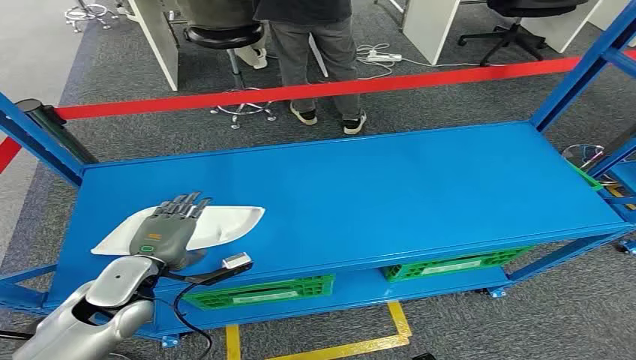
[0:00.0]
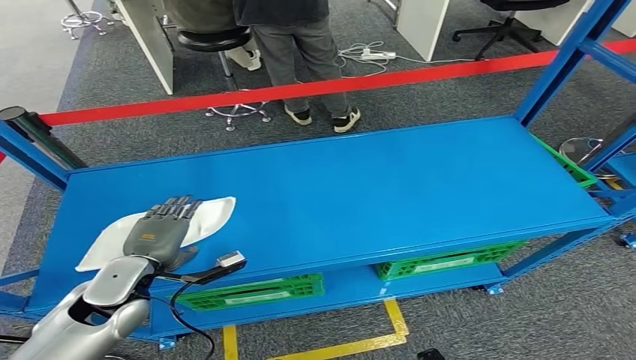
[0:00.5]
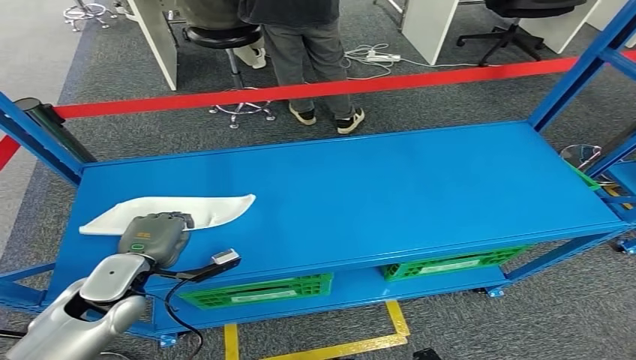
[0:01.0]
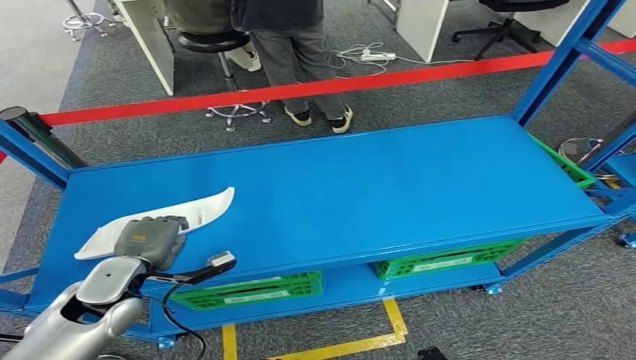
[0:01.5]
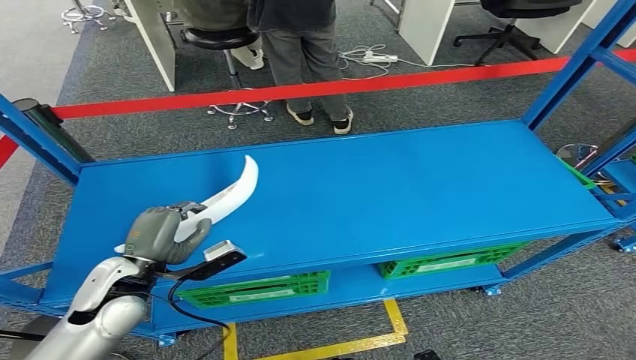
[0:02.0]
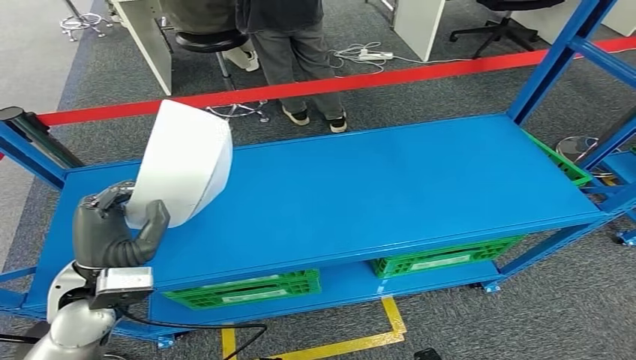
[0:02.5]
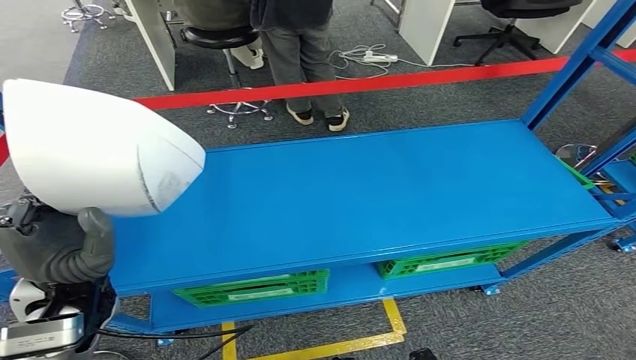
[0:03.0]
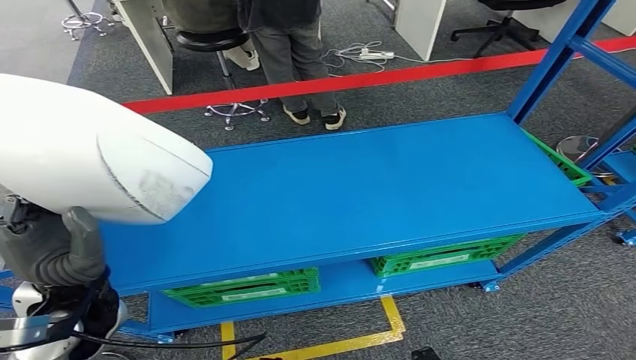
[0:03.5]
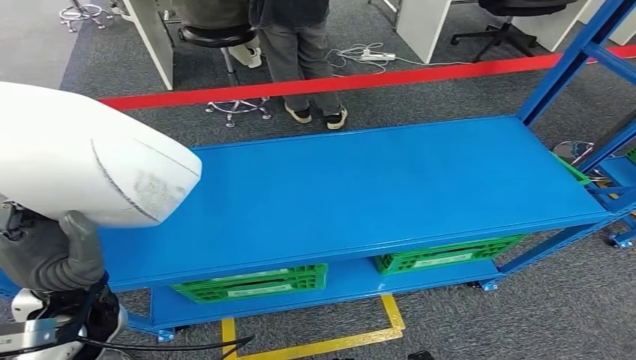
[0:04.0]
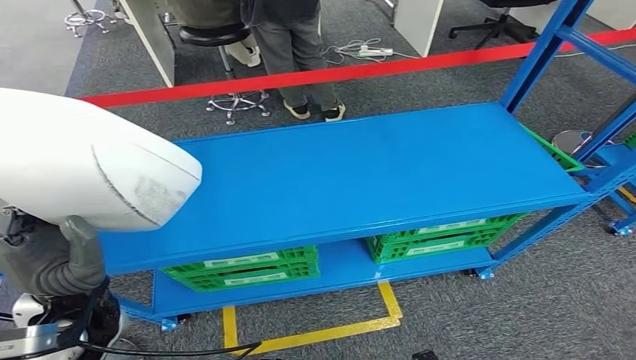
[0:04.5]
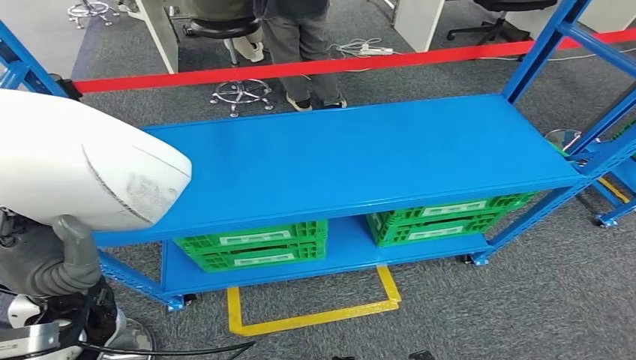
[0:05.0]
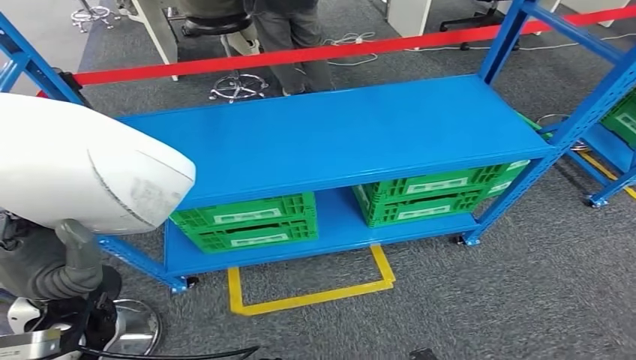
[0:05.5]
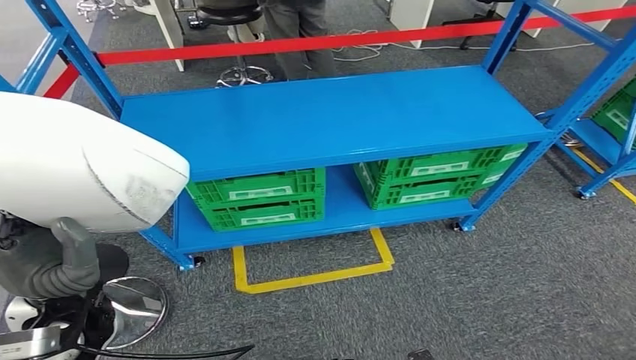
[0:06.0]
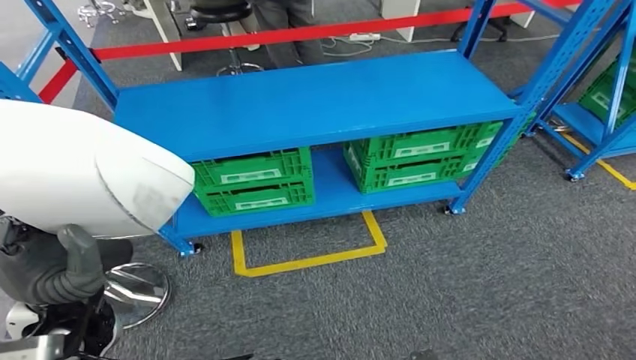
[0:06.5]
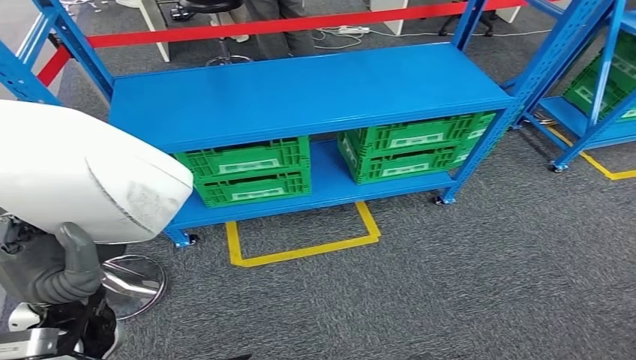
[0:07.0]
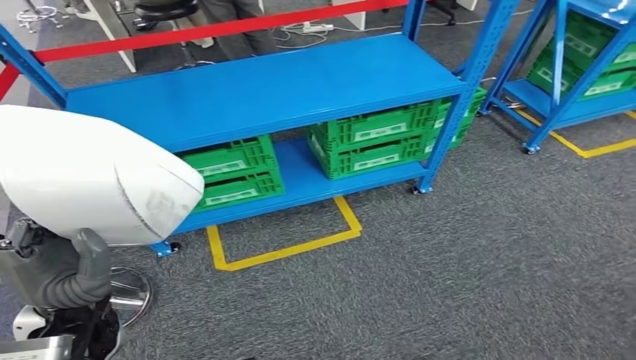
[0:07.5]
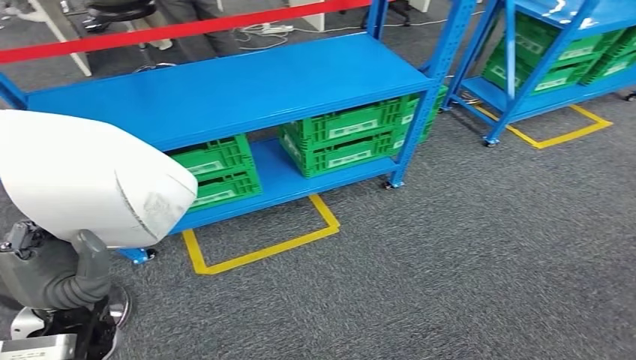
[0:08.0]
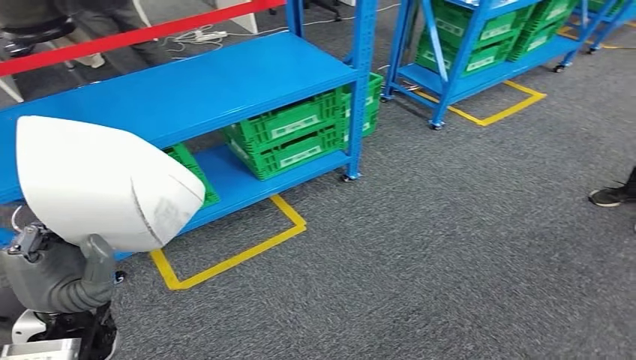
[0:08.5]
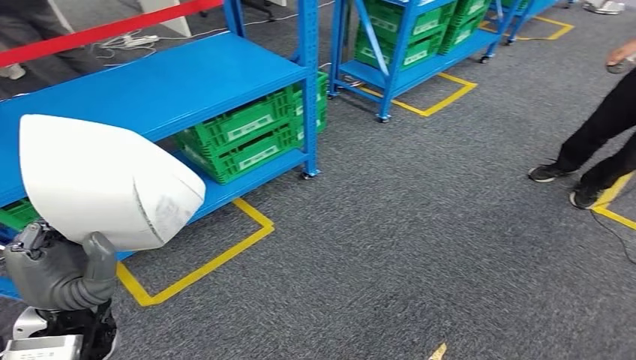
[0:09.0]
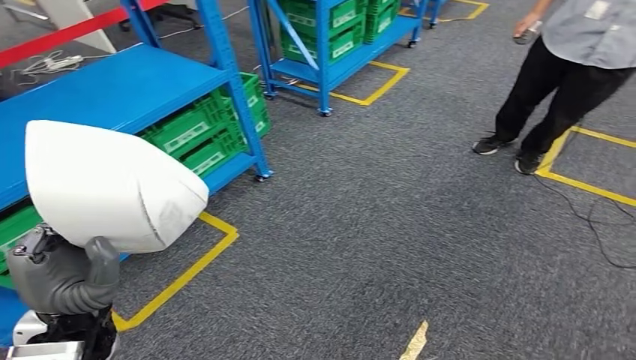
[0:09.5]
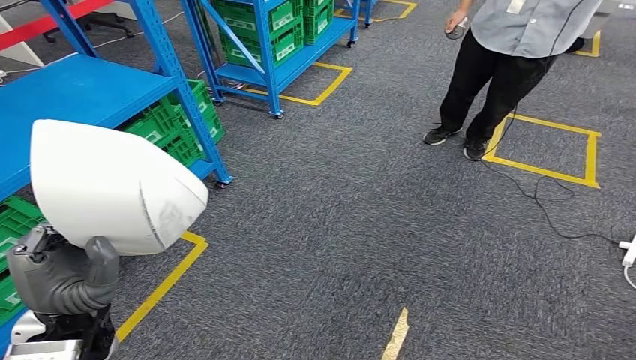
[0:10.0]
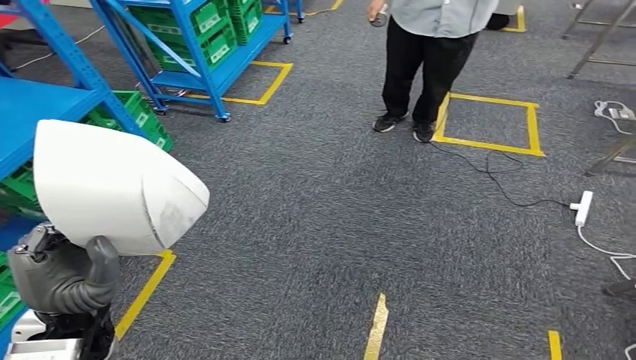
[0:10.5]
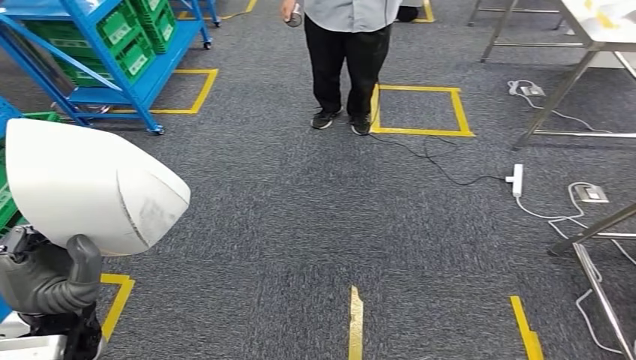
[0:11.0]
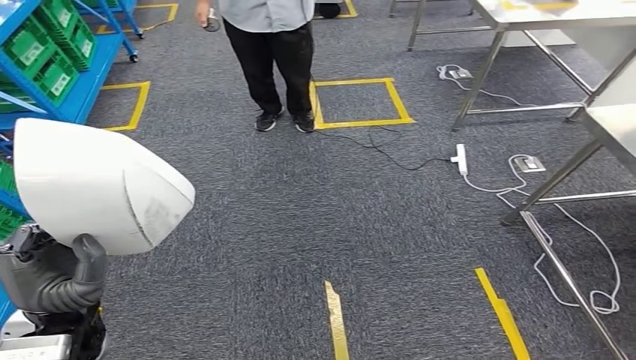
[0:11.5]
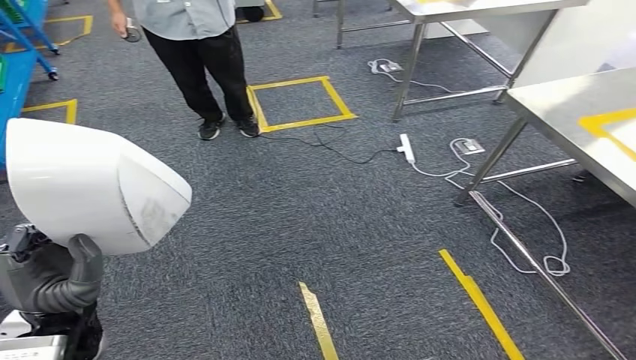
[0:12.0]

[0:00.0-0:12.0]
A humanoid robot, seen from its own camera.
Step, 0:00.0 to 0:03.0: Pick up the small component from the shelf.

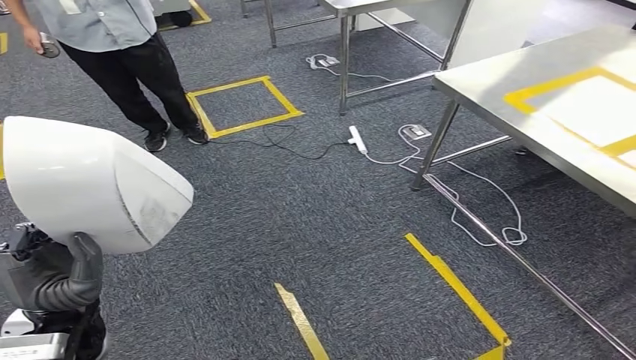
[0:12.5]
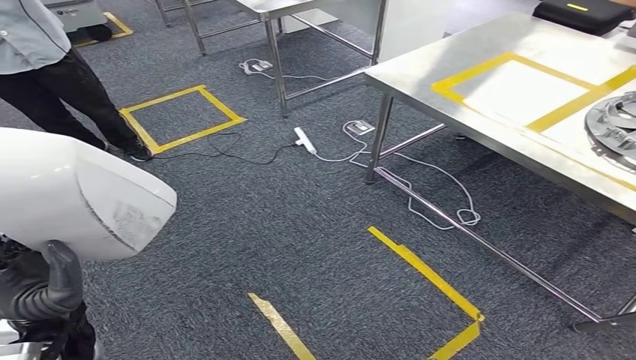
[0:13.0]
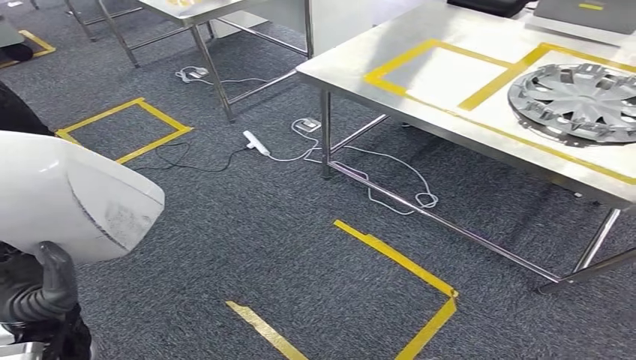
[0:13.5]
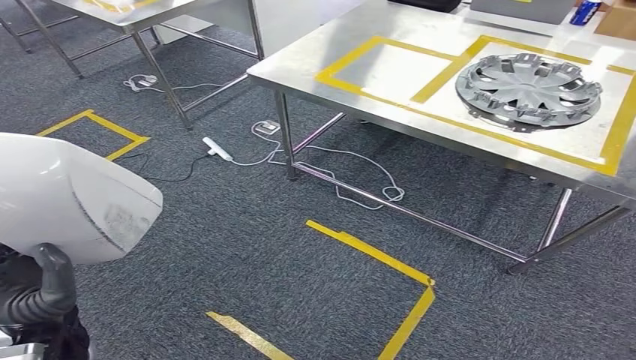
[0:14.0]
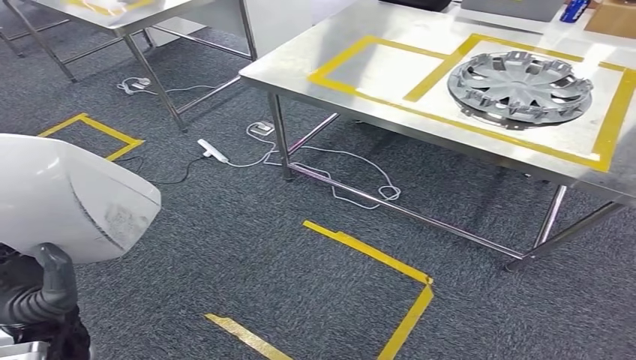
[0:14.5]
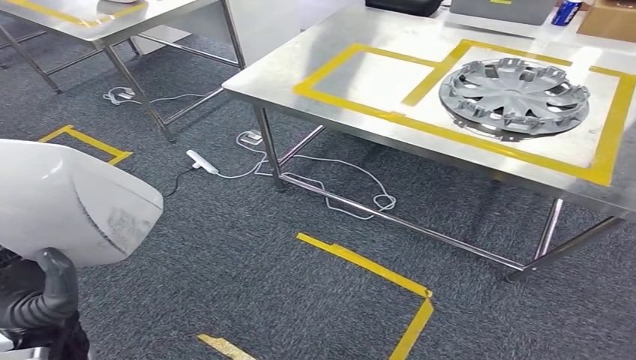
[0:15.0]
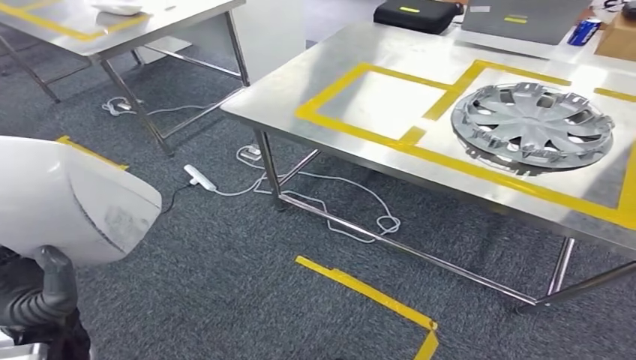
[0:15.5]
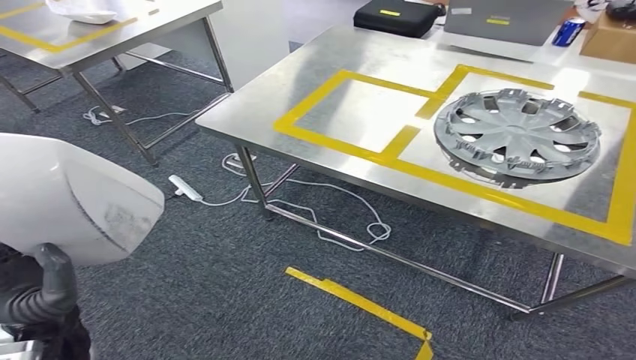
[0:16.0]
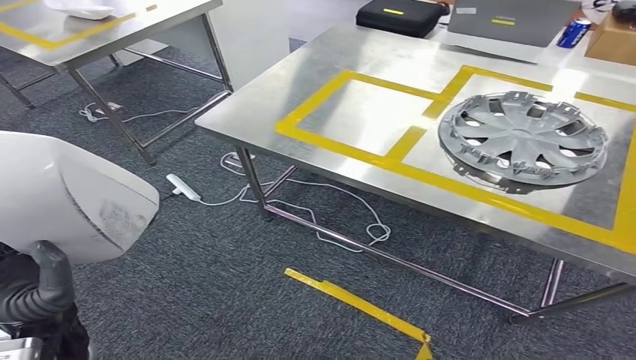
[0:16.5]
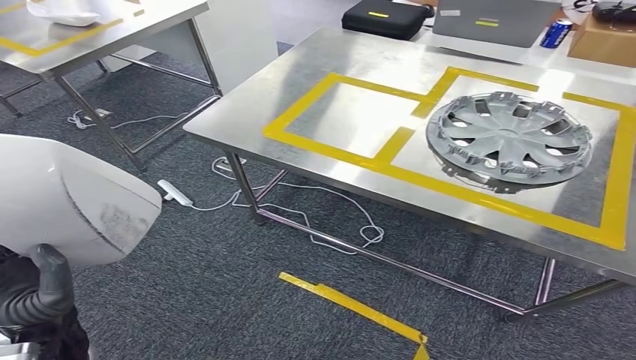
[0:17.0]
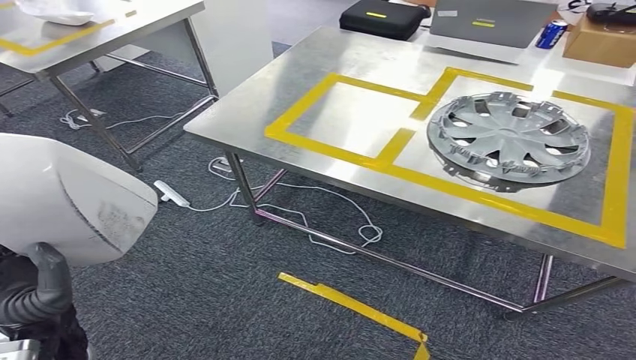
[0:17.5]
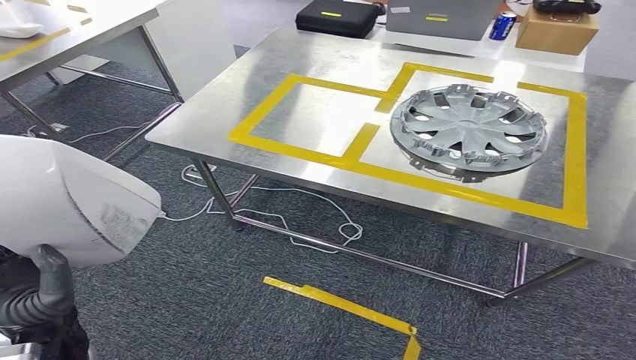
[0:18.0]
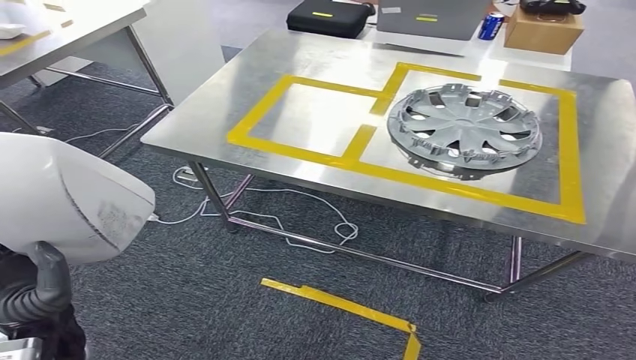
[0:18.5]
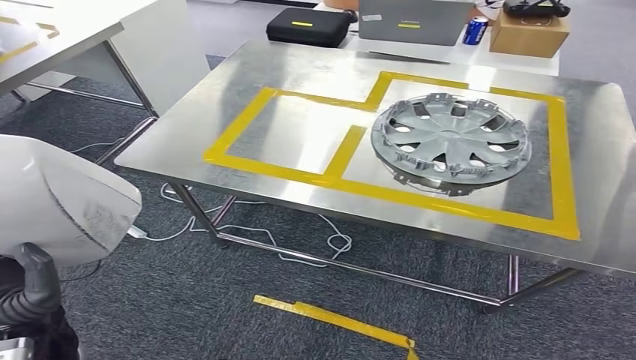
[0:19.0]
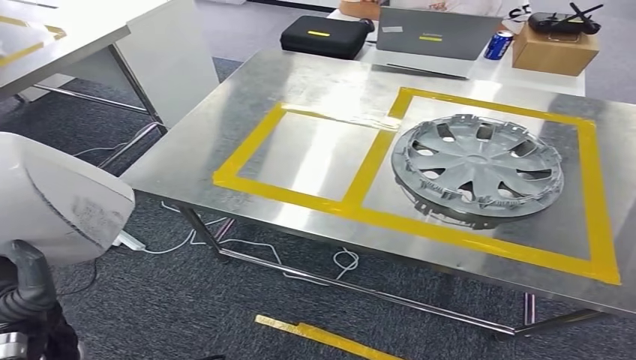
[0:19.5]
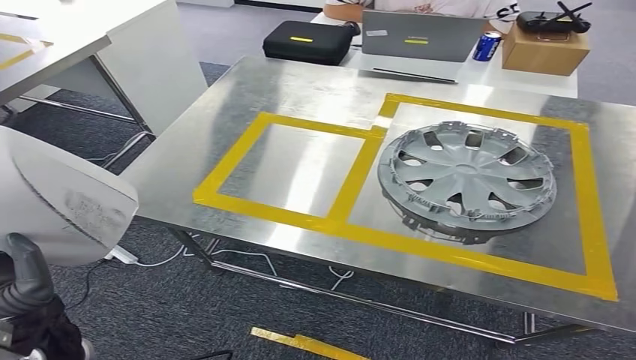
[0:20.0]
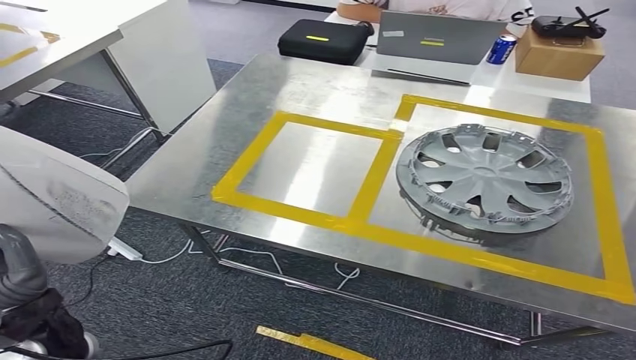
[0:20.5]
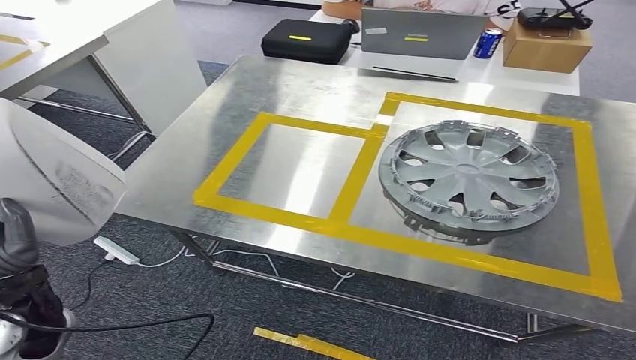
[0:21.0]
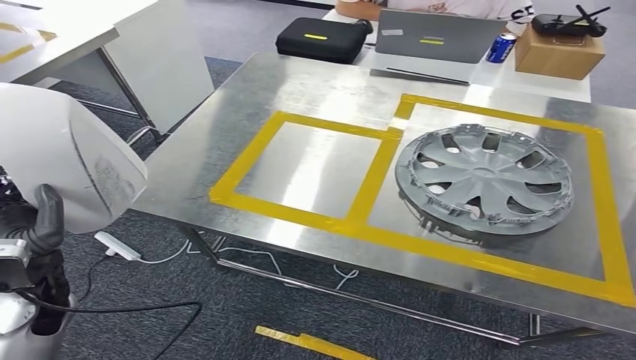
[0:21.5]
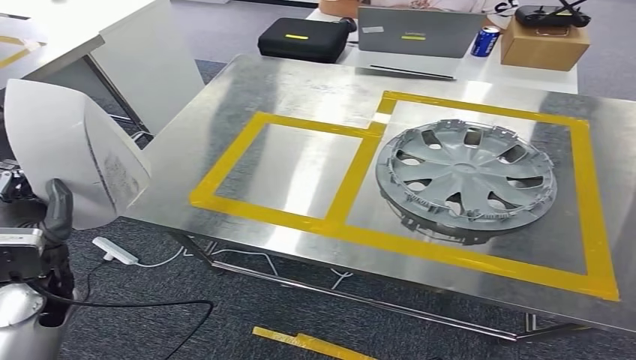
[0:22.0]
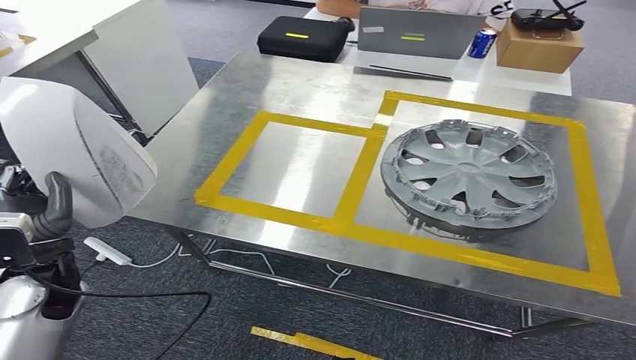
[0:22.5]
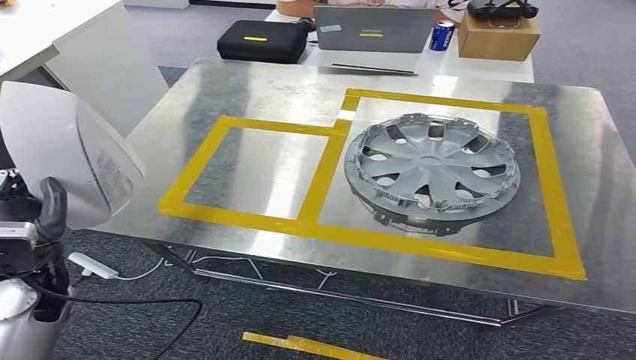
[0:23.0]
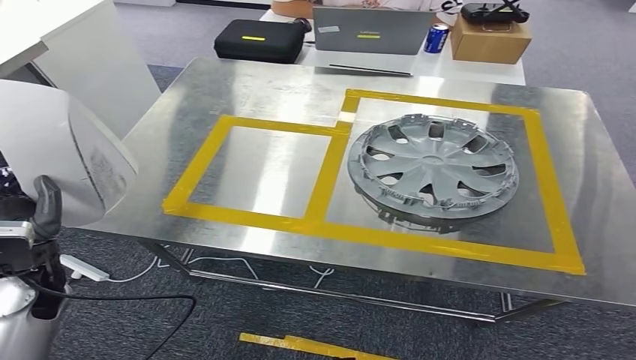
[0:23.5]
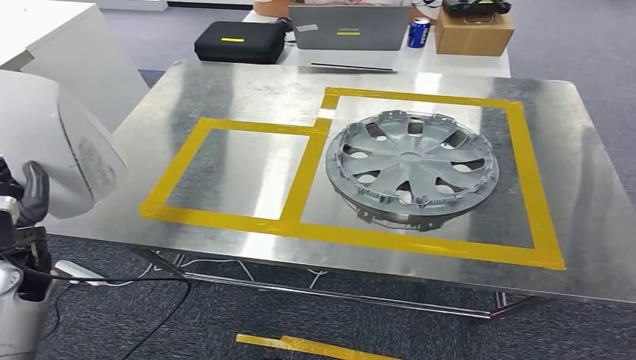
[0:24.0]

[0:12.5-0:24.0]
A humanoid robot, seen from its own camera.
Step, 0:12.5 to 0:23.0: Move the small component to the workbench.
